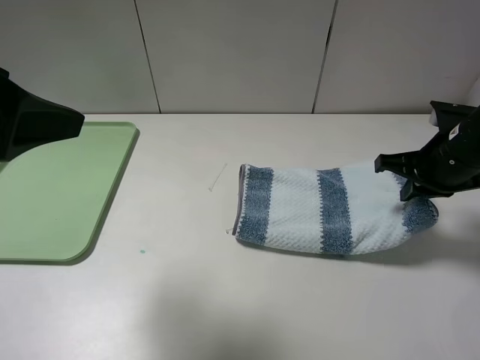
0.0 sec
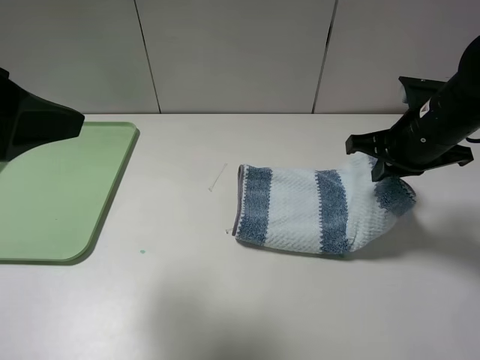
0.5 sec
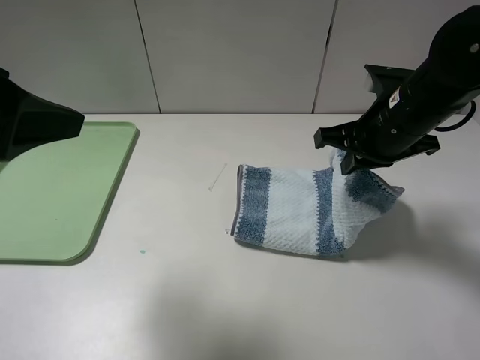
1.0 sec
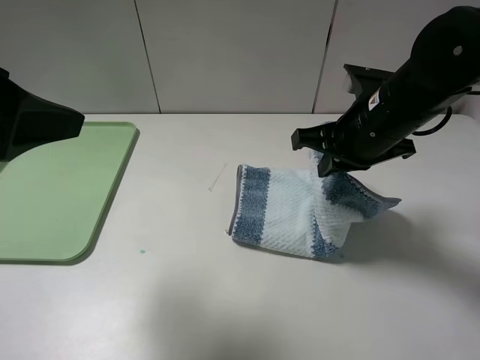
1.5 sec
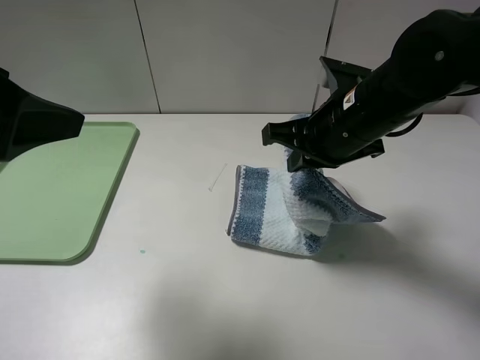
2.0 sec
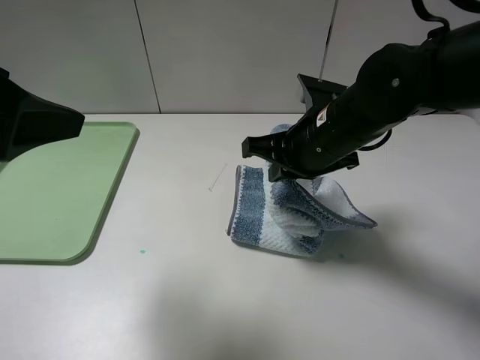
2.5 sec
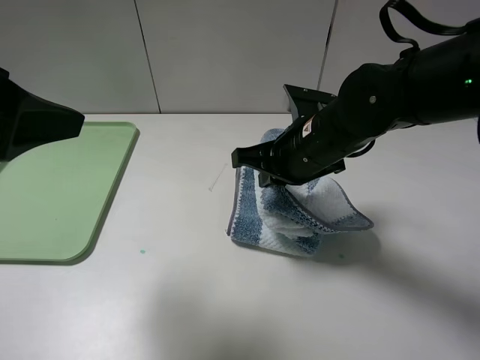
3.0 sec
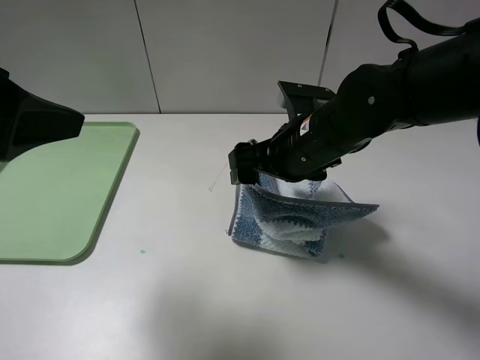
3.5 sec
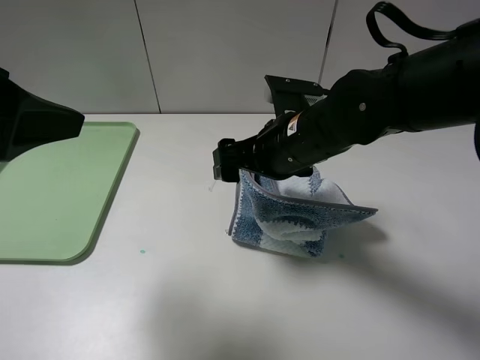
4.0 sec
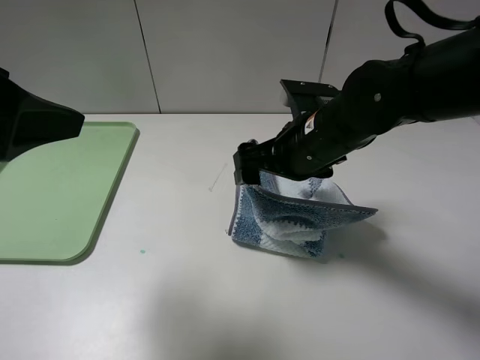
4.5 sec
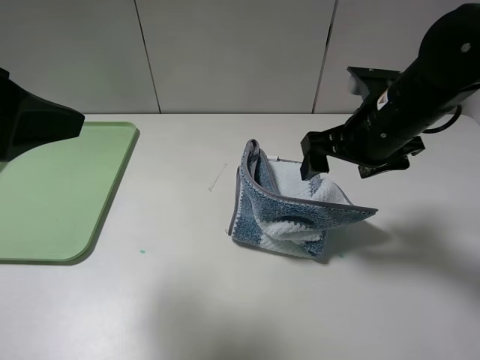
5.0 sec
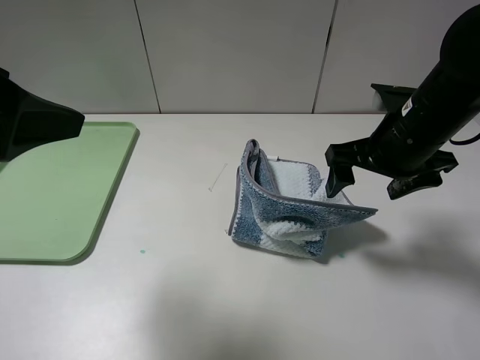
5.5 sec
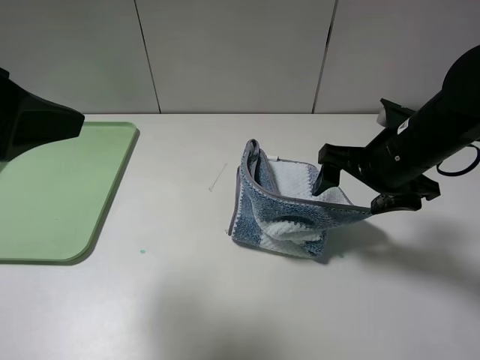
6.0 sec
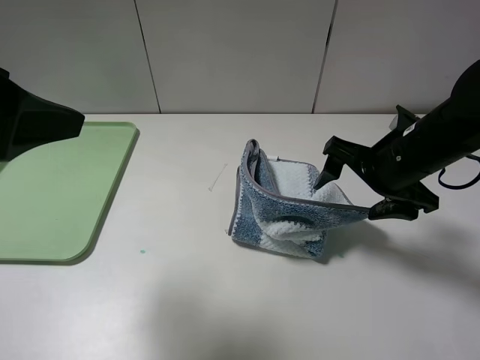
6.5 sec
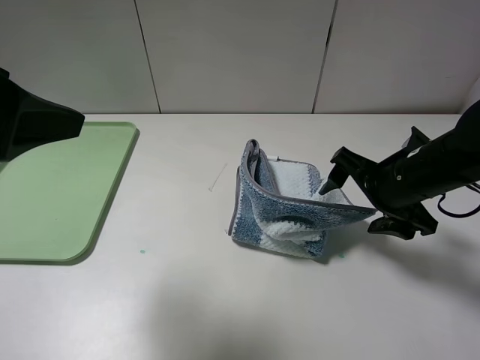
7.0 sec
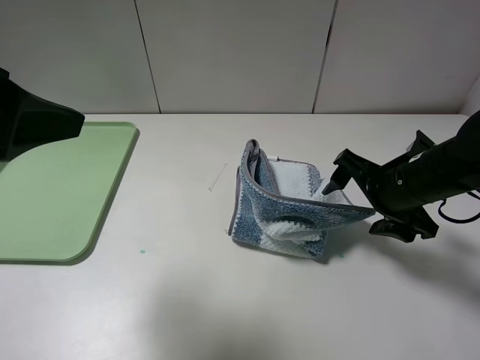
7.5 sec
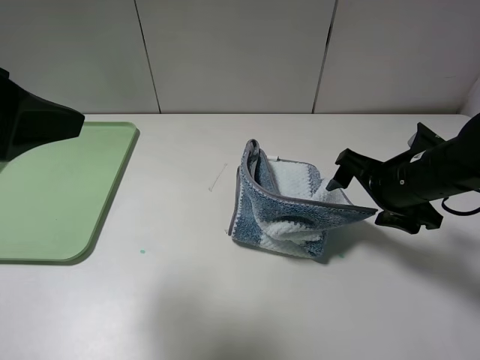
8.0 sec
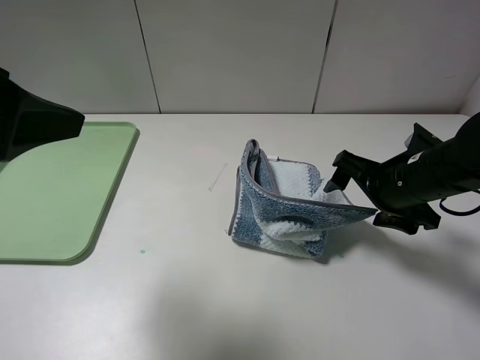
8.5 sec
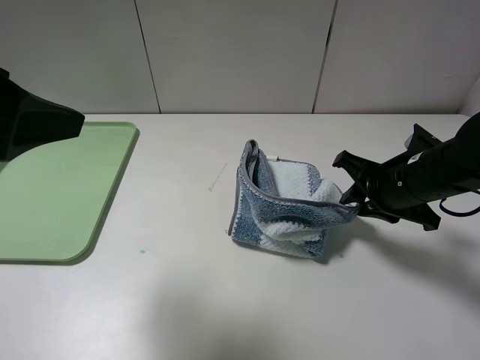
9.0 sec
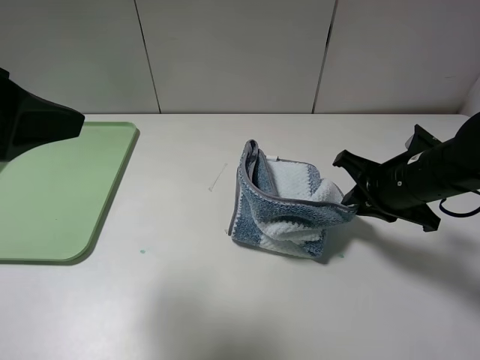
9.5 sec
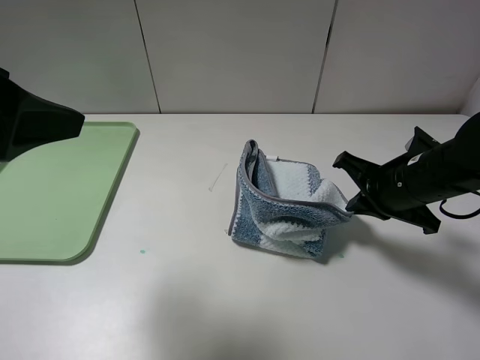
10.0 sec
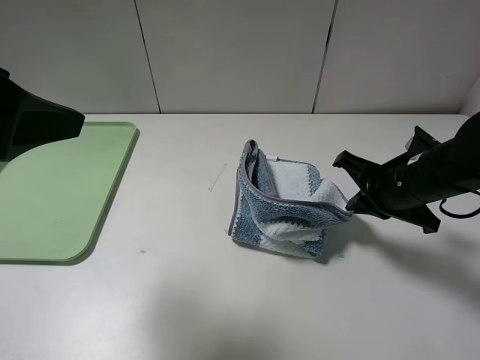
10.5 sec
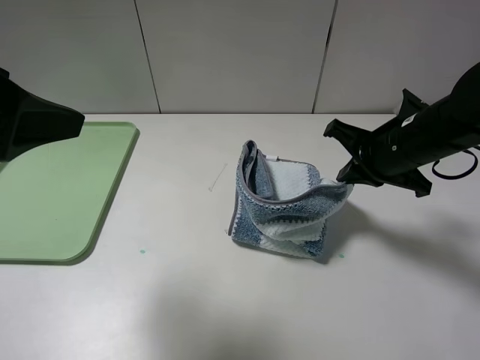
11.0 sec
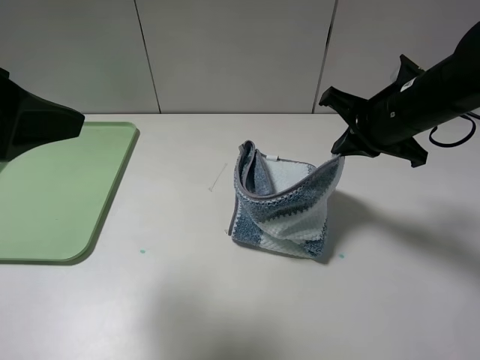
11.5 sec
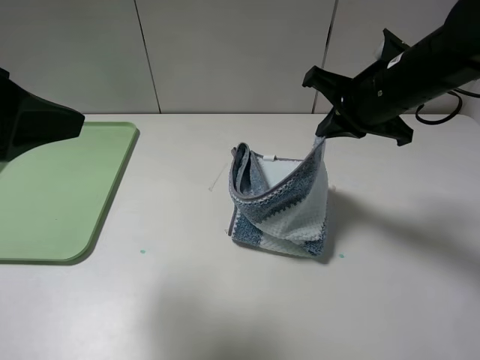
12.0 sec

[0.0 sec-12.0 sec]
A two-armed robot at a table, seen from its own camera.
0.0 sec to 2.0 sec: The right gripper is displaced to the left by approximately 15 cm.
2.0 sec to 4.0 sec: The right gripper moves approximately 5 cm, and opens its fingers.
4.0 sec to 6.0 sec: The right gripper heads to the right, covering approximately 10 cm.
8.0 sec to 10.0 sec: The right gripper closes its fingers.
10.0 sec to 12.0 sec: The right gripper shifts about 10 cm upward, forward and to the left.

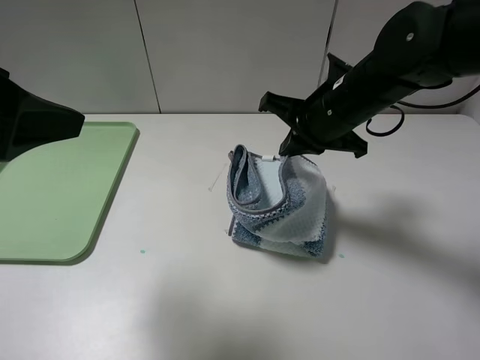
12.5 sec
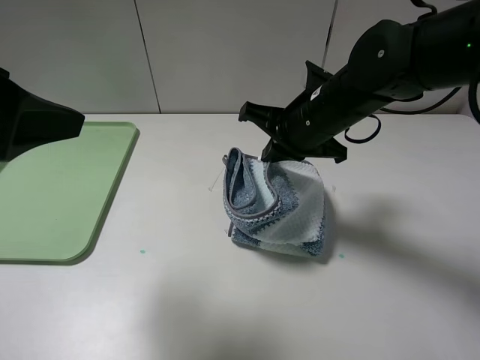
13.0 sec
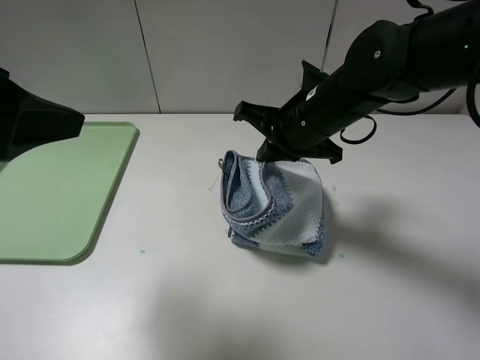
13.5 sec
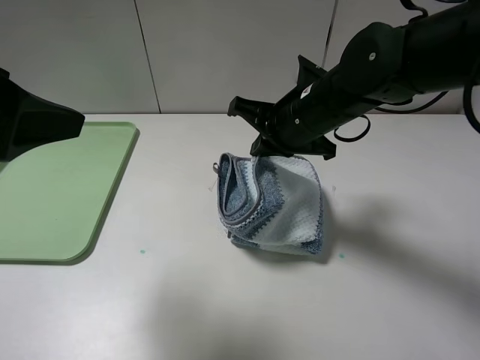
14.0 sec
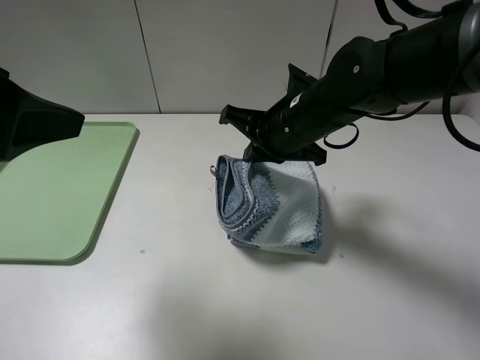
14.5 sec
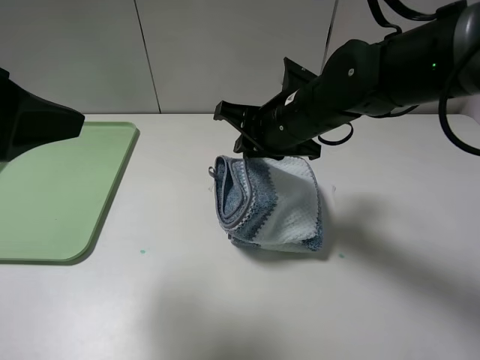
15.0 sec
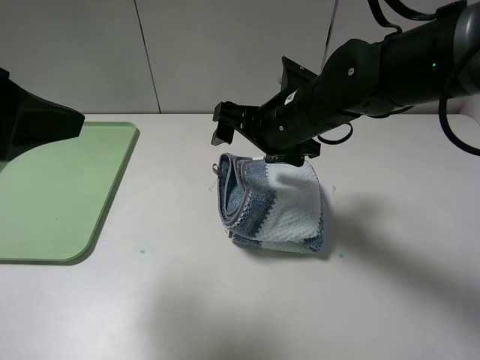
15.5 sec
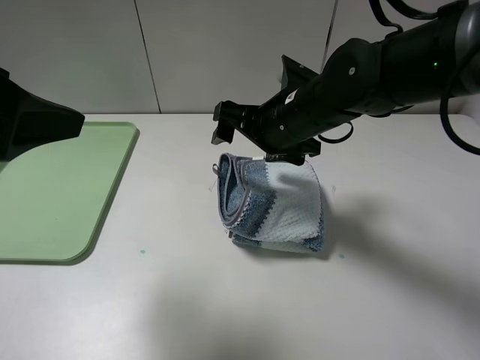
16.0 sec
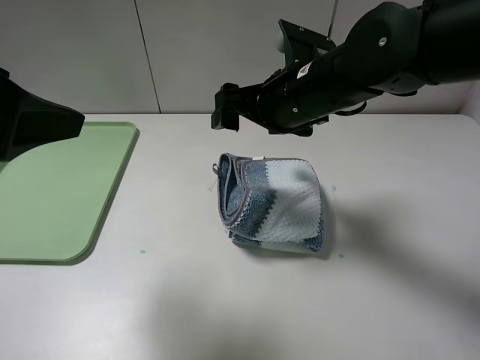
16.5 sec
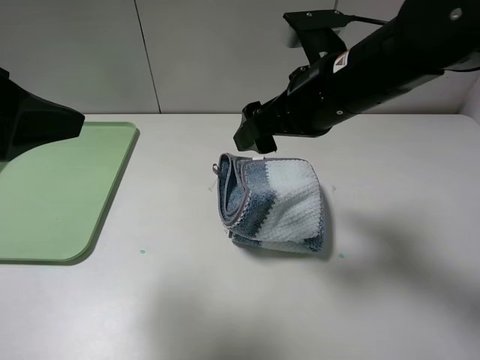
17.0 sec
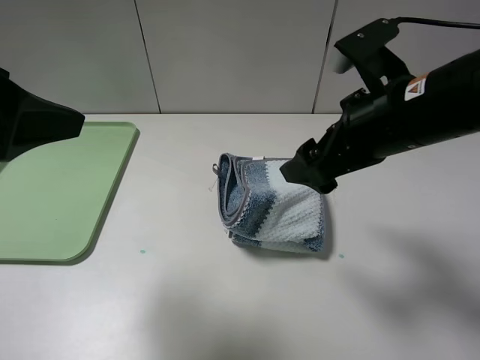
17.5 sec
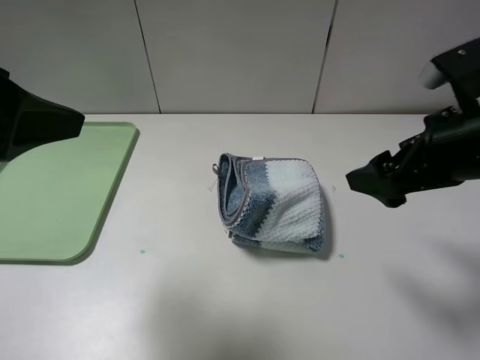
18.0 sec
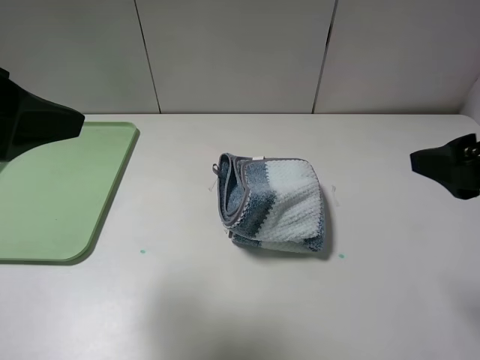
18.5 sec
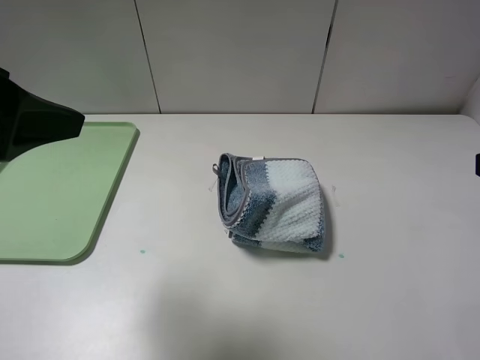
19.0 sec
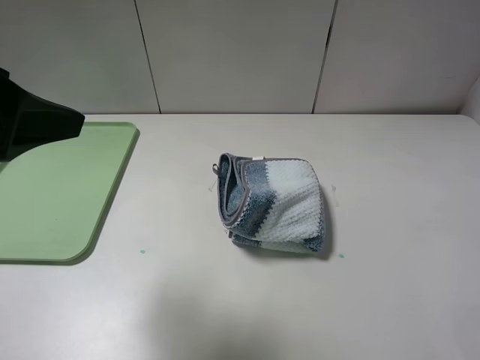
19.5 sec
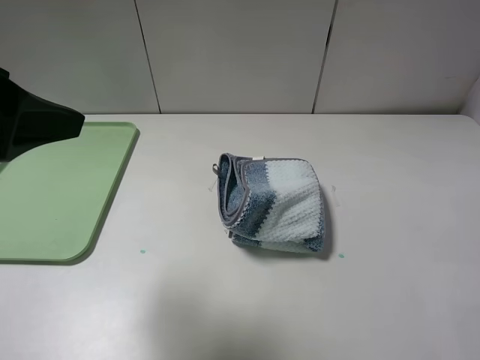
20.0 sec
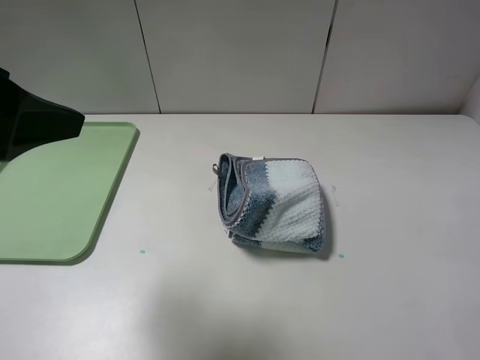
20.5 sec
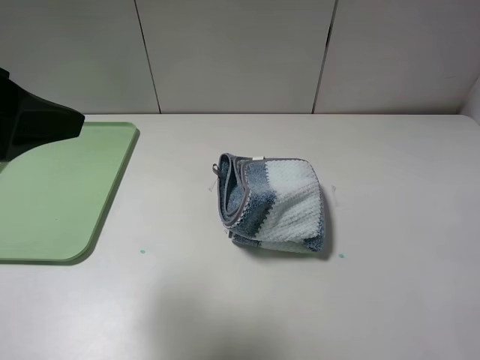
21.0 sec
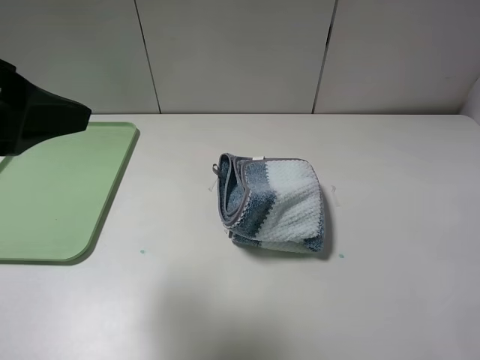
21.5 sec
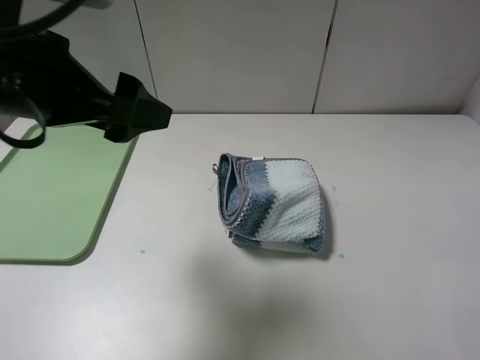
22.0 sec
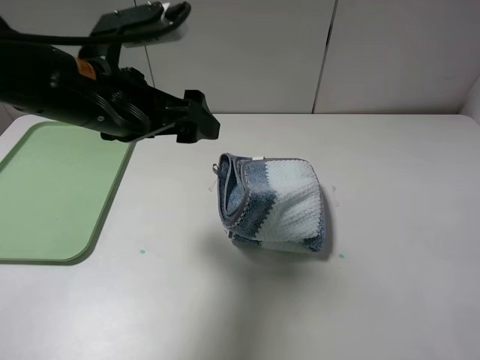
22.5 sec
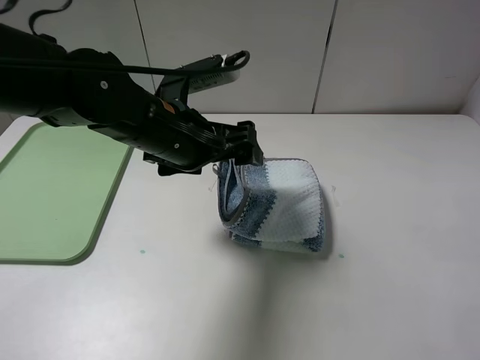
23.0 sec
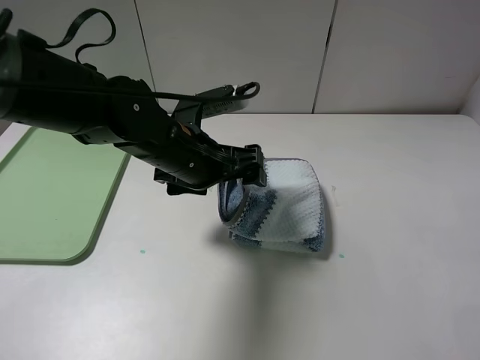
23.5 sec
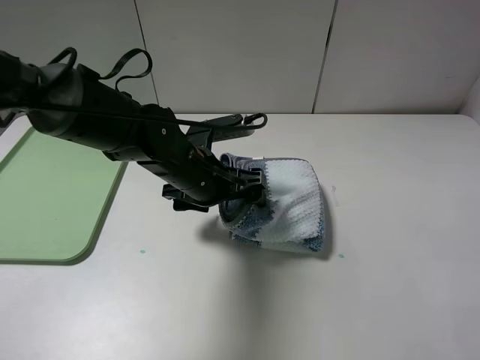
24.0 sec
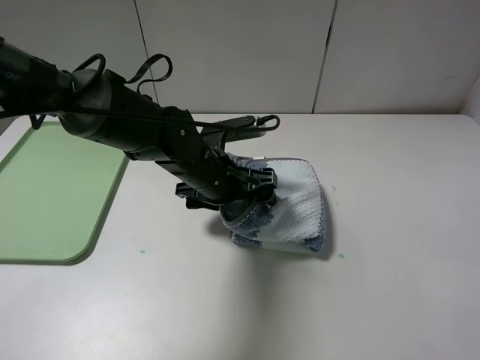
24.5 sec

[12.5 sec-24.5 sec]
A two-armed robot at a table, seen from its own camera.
Step, 12.5 sec to 16.5 sec: Fold the blue white towel from right to left with right gripper.
12.5 sec to 14.5 sec: There are only small adjustments of the grippers.
14.5 sec to 16.5 sec: The right gripper opens up.
16.5 sec to 18.5 sec: The right gripper heads to the right and backward, covering approximately 25 cm.
18.5 sec to 20.5 sec: The right gripper goes about 15 cm backward.
20.5 sec to 22.5 sec: The left gripper goes some 15 cm forward, to the right and downward.
22.5 sec to 24.5 sec: The left gripper heads downward and to the right, covering about 15 cm.

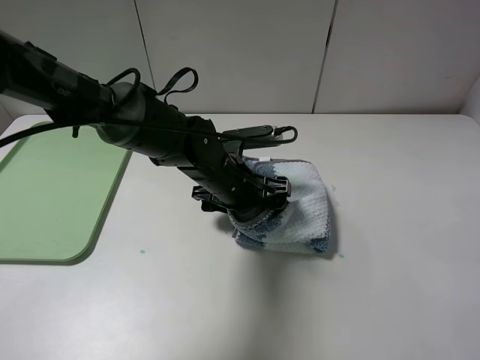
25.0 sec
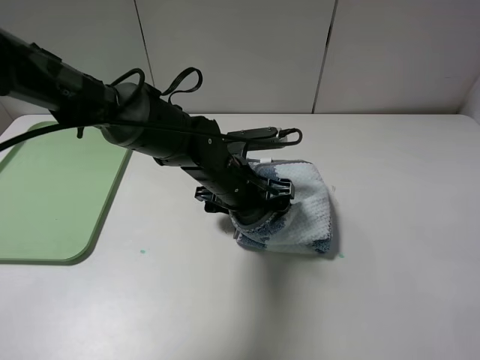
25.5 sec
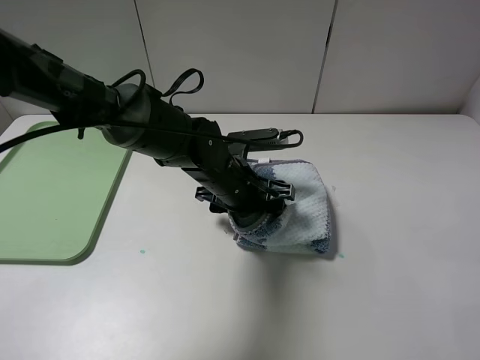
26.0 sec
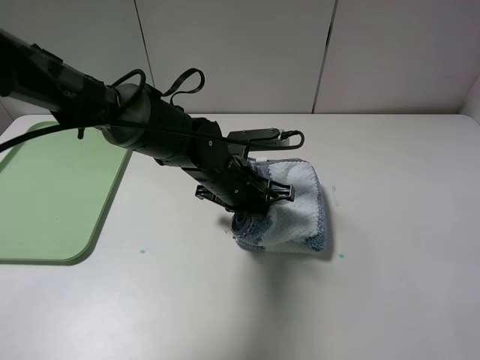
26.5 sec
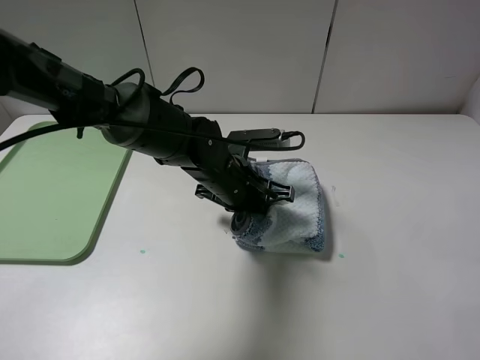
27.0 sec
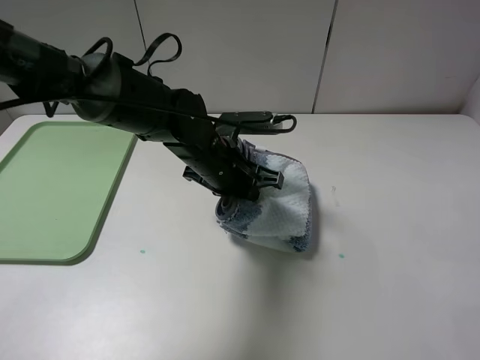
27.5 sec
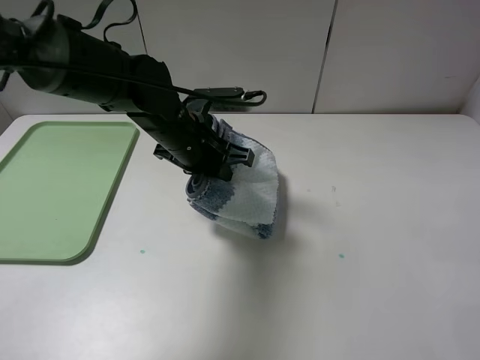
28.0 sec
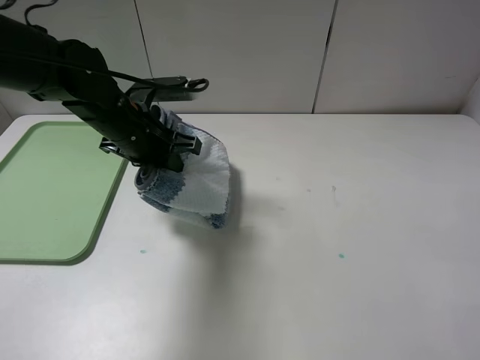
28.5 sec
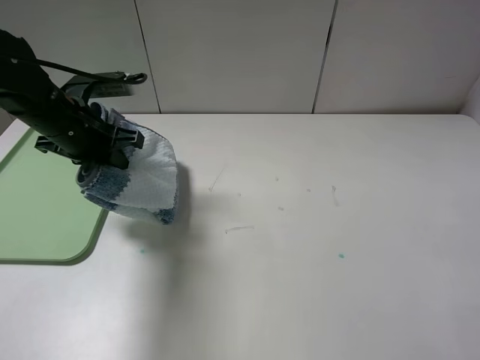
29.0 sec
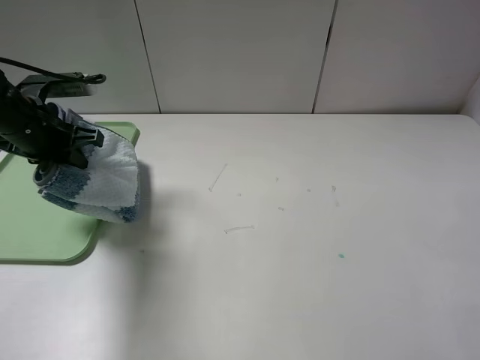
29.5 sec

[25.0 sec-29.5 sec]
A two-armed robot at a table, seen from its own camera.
25.0 sec to 27.0 sec: The left gripper closes its fingers.
27.0 sec to 29.5 sec: The left gripper moves to the left, roughly 25 cm.
